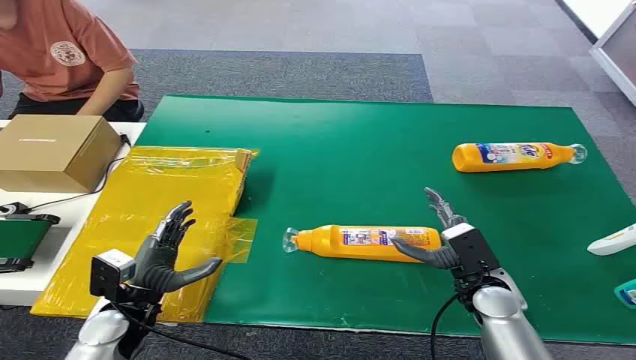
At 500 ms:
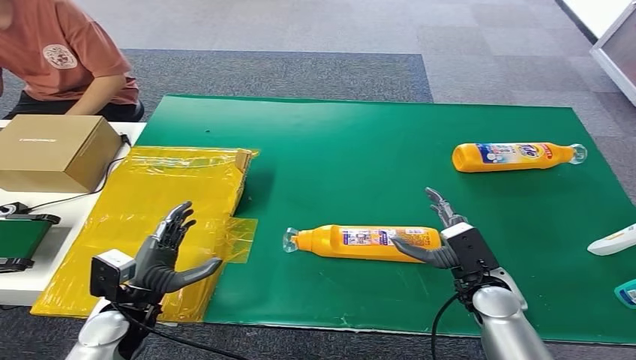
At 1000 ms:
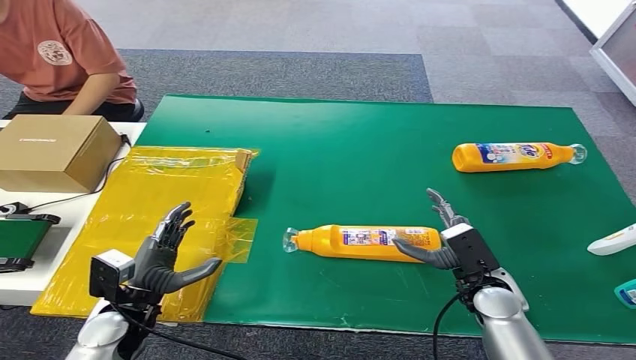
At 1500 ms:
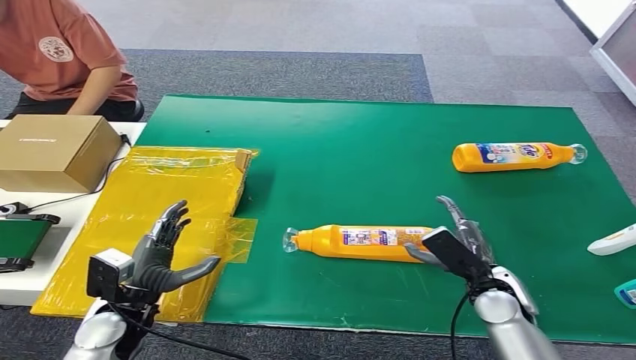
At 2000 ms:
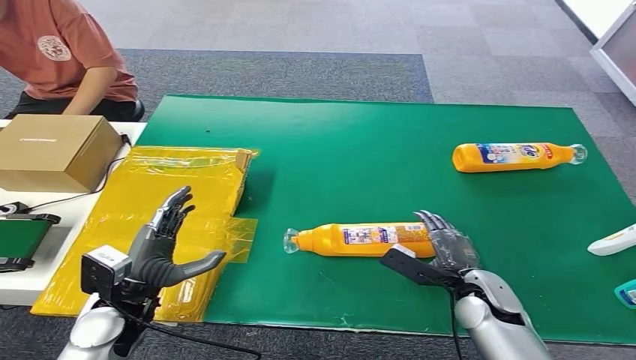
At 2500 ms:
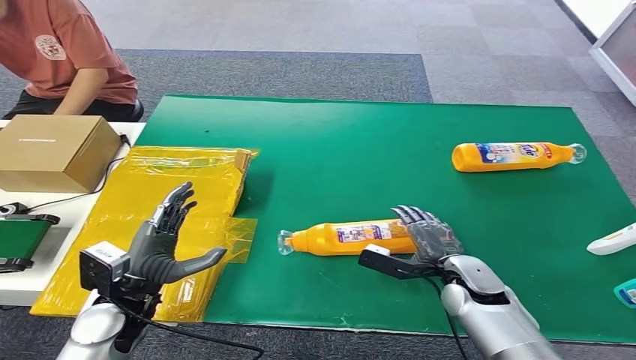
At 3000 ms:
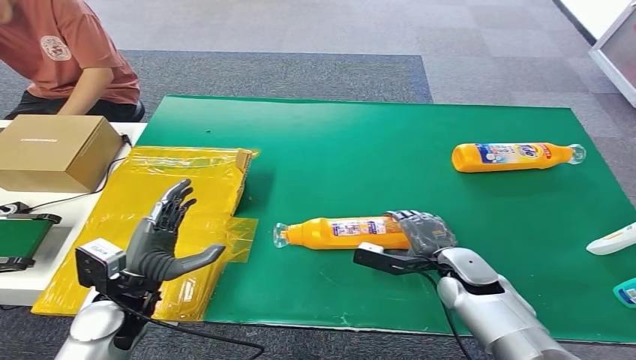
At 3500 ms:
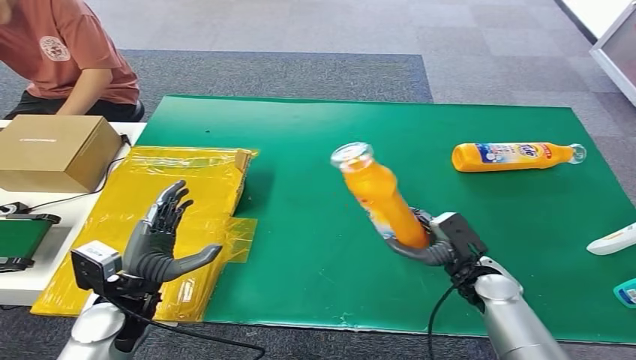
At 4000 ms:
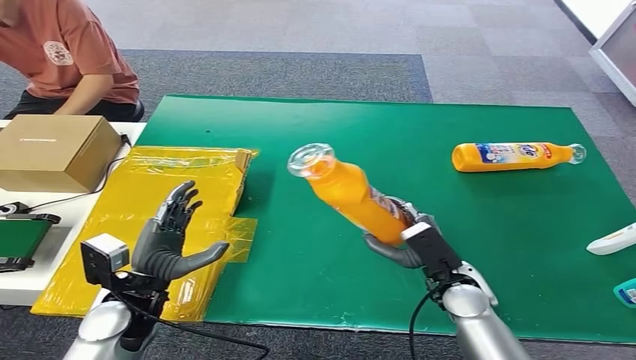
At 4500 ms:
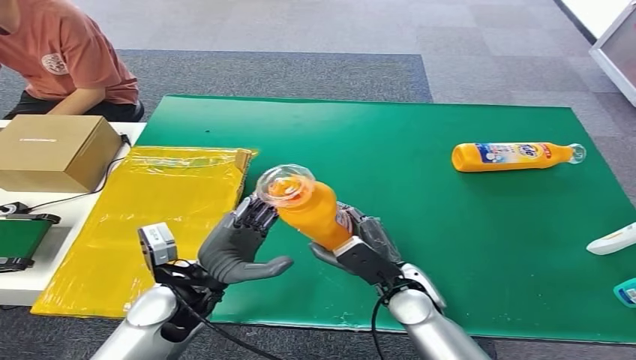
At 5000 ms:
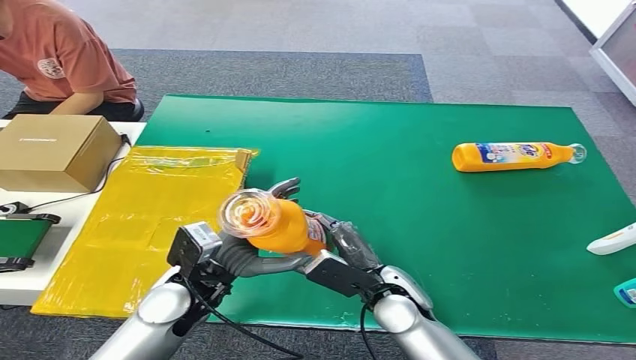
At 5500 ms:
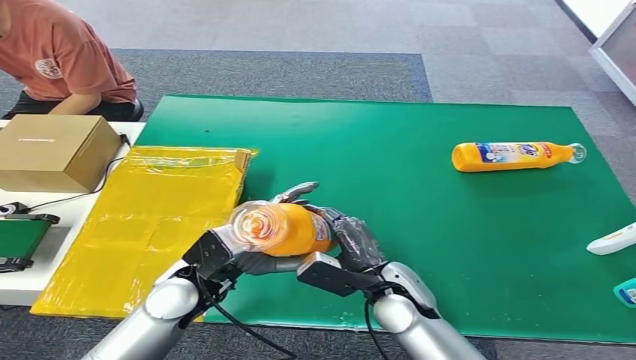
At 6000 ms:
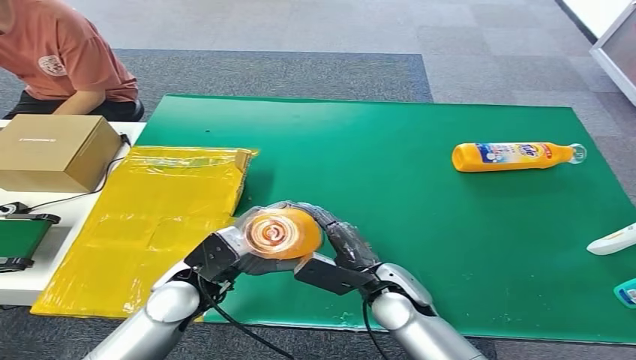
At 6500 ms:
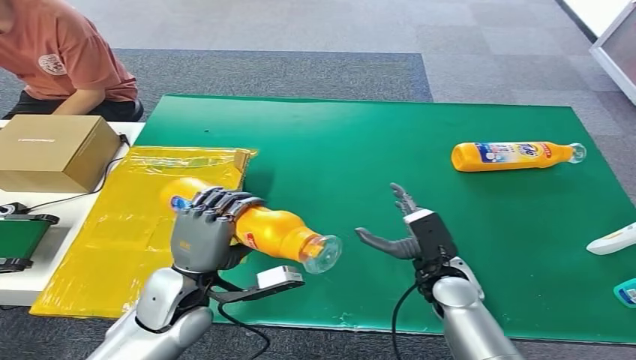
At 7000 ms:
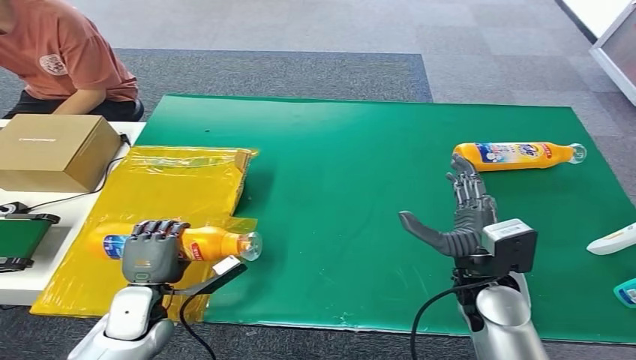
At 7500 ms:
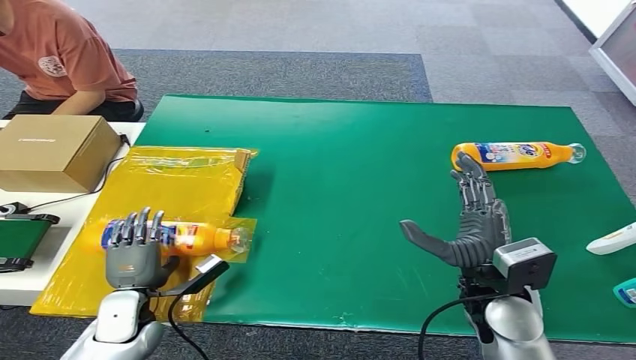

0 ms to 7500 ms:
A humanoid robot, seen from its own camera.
Step, 0 ms to 3500 ms: Pick up the bottle from the table.
Step, 4000 ms to 7500 ms: Turn the bottle to the front side.
2000 ms to 4000 ms: The right hand changes place by some 5 cm.
5500 ms to 7500 ms: The right hand heads to the right and upward, covering about 15 cm. Meanwhile the left hand travels to the left and downward by some 20 cm.
